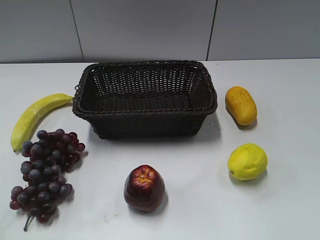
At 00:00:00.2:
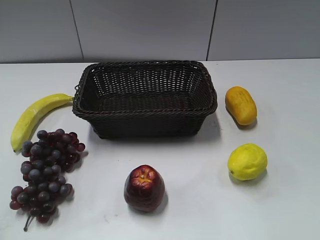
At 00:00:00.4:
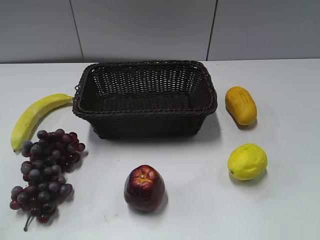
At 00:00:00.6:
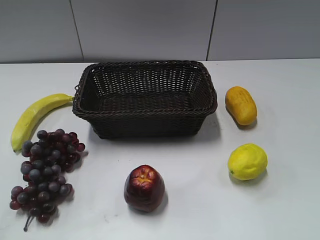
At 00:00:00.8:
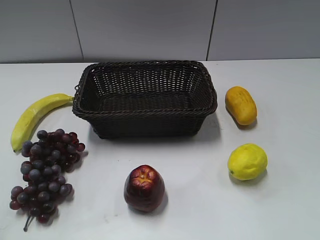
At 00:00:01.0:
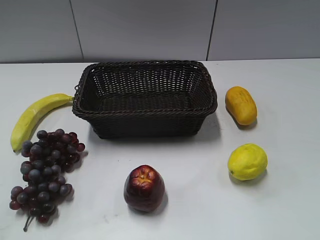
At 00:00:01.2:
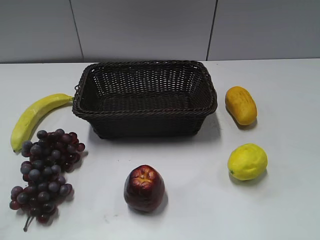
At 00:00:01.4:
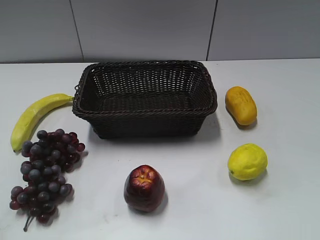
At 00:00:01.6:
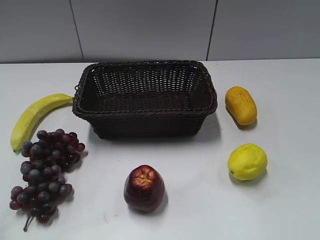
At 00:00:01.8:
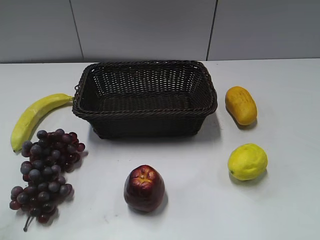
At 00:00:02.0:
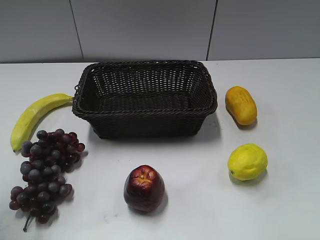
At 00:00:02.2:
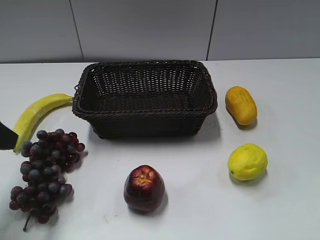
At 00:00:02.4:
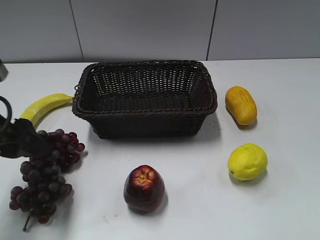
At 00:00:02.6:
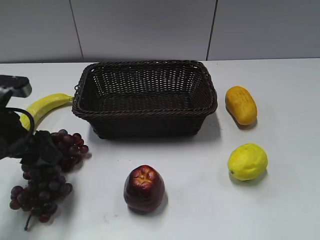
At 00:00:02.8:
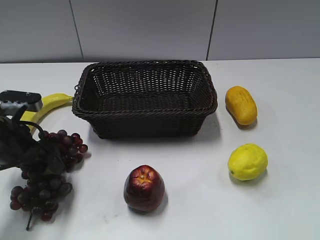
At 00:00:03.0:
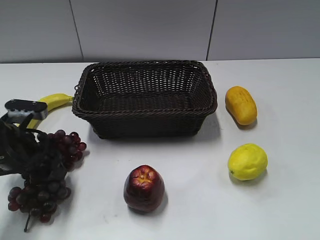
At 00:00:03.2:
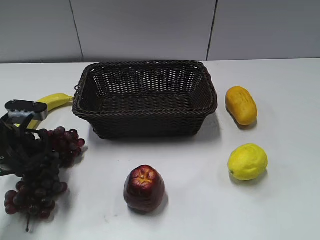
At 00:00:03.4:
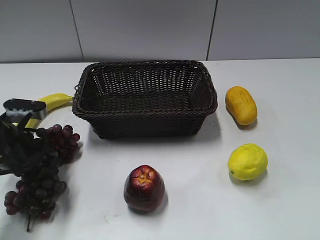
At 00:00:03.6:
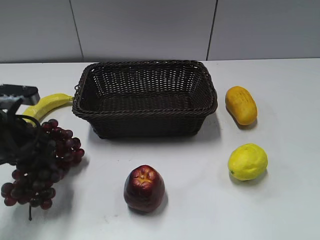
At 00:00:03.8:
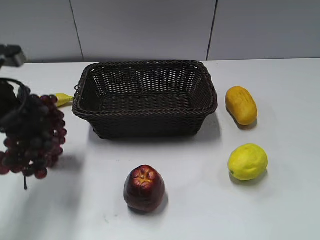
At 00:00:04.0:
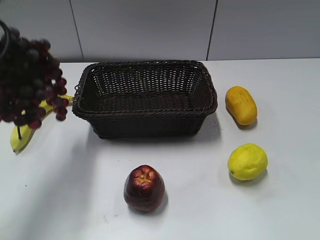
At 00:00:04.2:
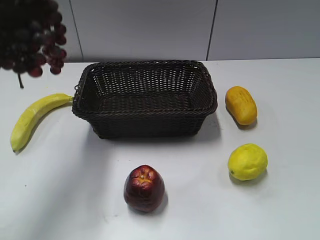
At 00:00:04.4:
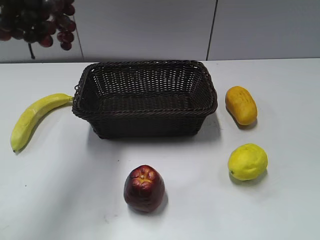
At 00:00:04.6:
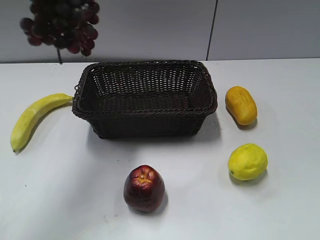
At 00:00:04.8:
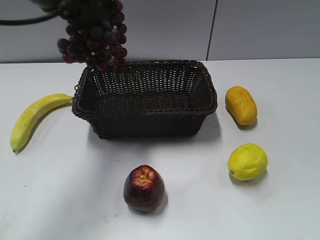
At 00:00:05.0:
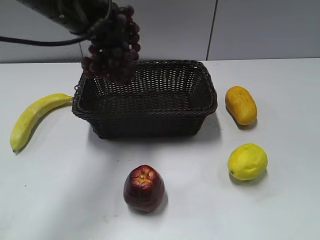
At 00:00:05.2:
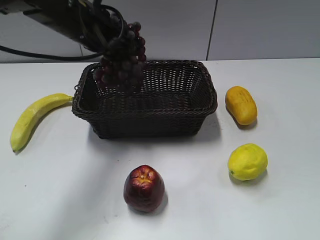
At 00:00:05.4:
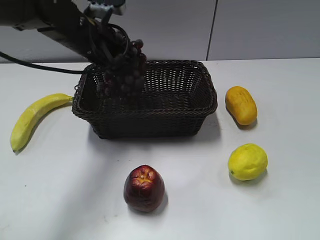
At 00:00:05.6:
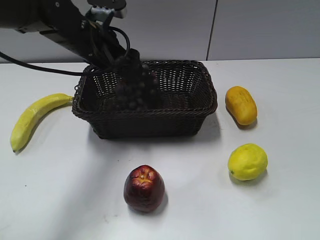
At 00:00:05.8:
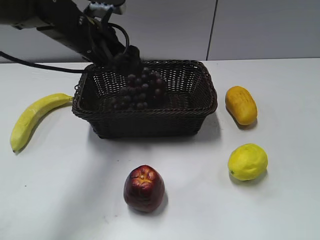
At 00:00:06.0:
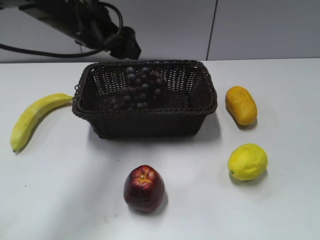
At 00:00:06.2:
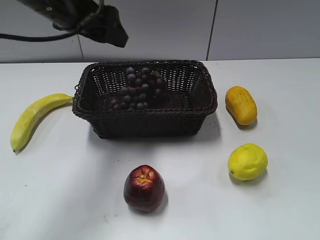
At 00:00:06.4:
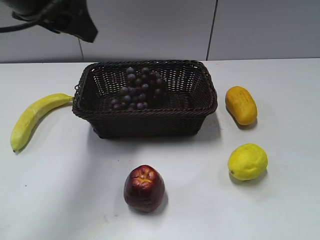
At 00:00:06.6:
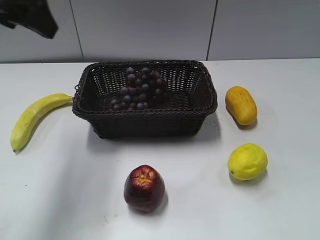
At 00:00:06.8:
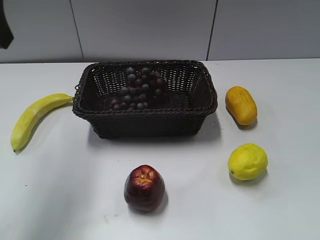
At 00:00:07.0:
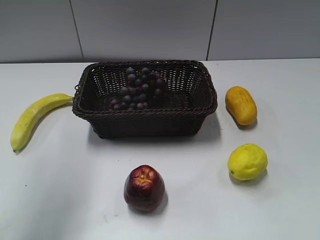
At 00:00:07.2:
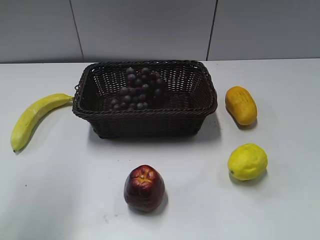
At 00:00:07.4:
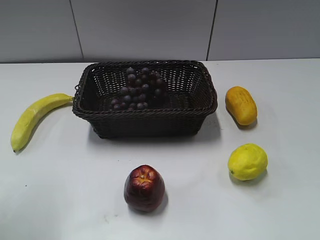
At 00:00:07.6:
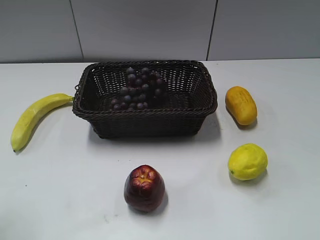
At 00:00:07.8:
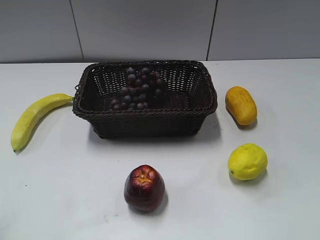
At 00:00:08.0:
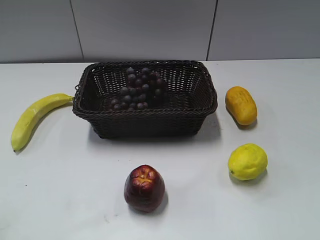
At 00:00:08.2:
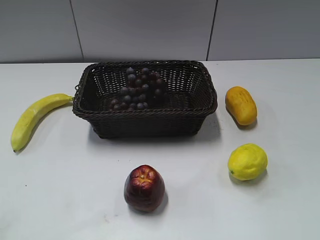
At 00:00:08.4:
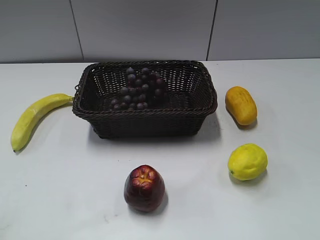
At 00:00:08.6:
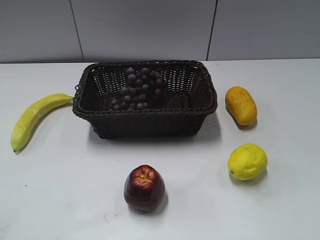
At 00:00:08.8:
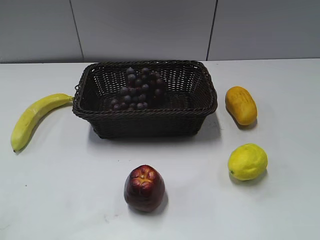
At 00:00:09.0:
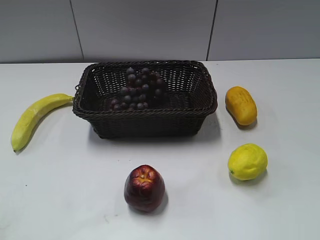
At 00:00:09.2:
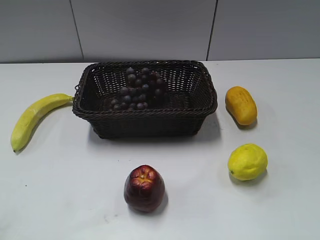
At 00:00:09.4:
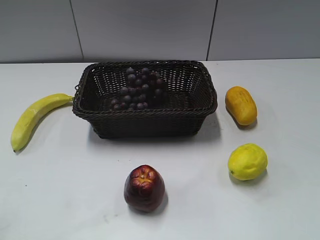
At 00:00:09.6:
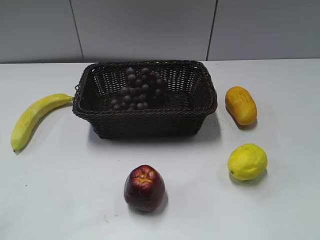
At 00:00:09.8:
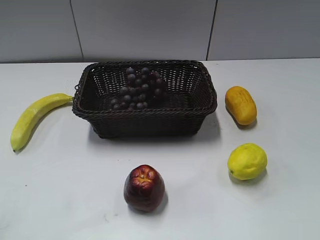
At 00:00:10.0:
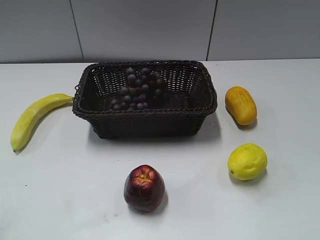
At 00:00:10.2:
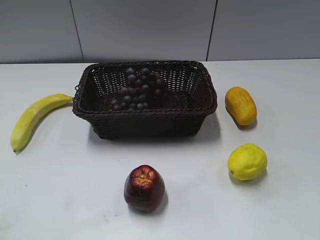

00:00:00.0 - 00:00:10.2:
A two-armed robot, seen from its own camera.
Step, 00:00:02.2 - 00:00:03.2: Grasp the grape with left gripper.
Step, 00:00:03.6 - 00:00:05.6: Place the grape in the basket with left gripper.
00:00:01.4 - 00:00:03.0: The left gripper shifts some 30 cm forward and downward.
00:00:03.0 - 00:00:04.4: The left gripper shifts about 25 cm upward, and closes up.
00:00:04.4 - 00:00:05.8: The left gripper goes approximately 20 cm downward, to the right and forward, and opens its fingers.
00:00:05.8 - 00:00:07.2: The left gripper travels backward, upward and to the left by roughly 25 cm.
00:00:07.2 - 00:00:08.8: The left gripper is displaced backward and downward by roughly 20 cm.
